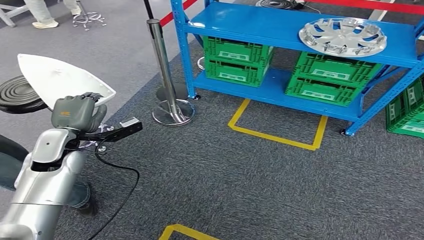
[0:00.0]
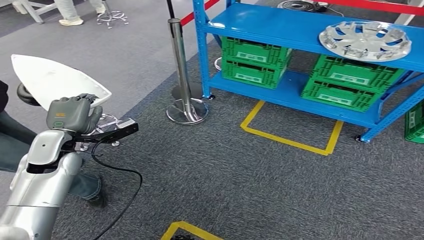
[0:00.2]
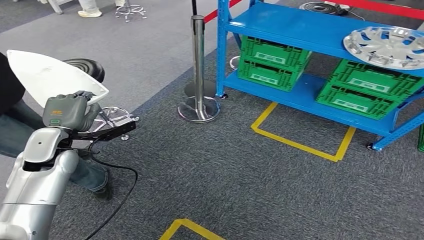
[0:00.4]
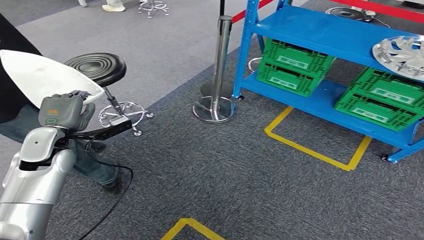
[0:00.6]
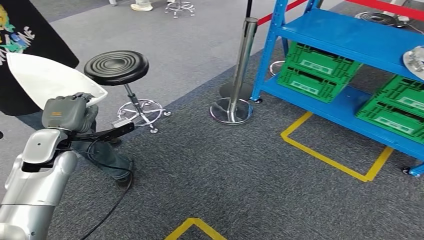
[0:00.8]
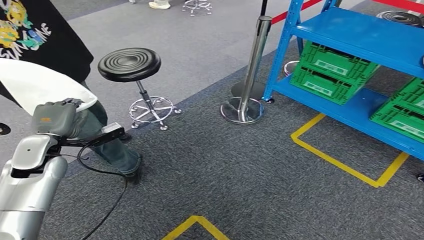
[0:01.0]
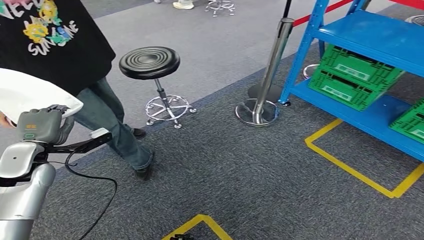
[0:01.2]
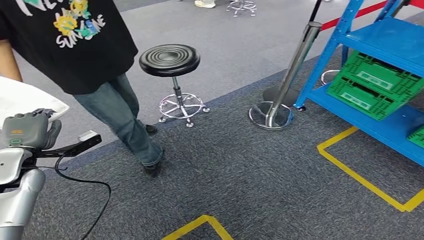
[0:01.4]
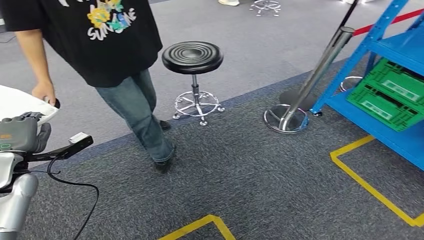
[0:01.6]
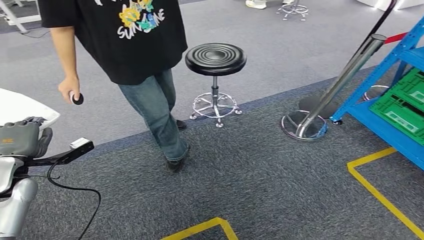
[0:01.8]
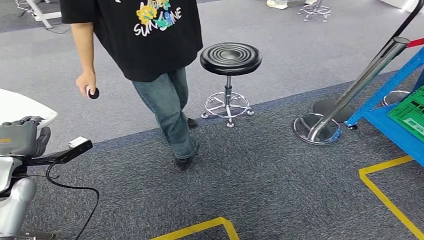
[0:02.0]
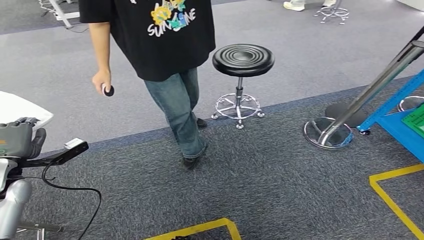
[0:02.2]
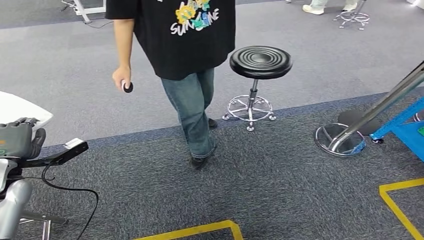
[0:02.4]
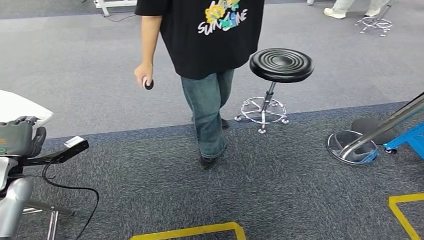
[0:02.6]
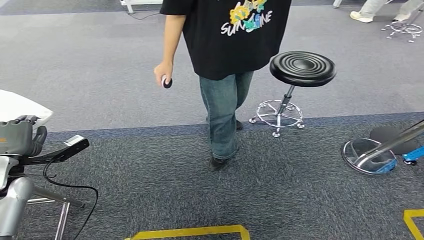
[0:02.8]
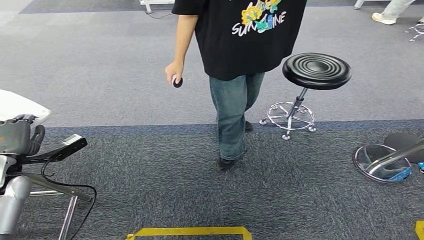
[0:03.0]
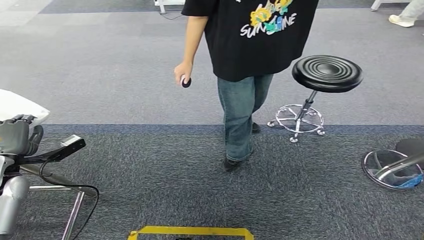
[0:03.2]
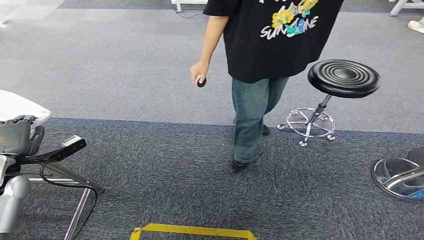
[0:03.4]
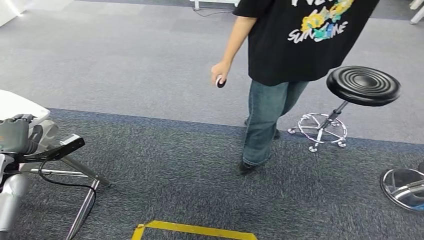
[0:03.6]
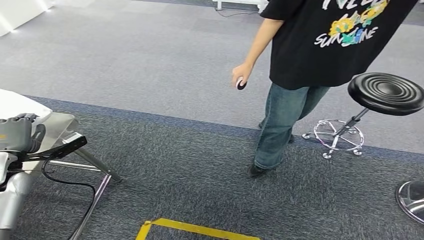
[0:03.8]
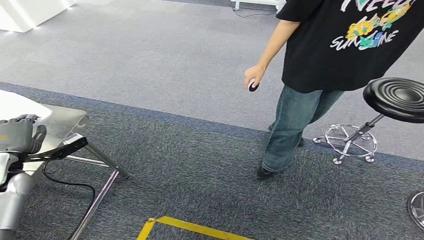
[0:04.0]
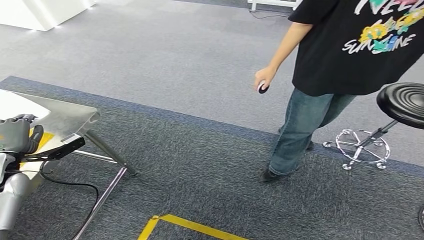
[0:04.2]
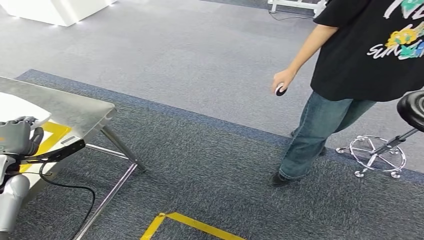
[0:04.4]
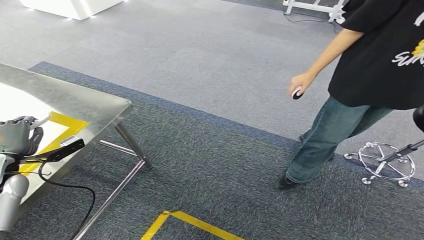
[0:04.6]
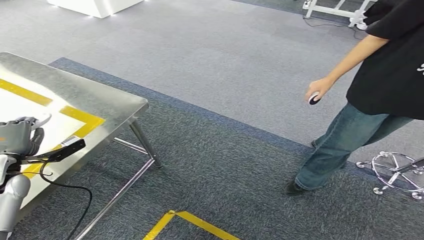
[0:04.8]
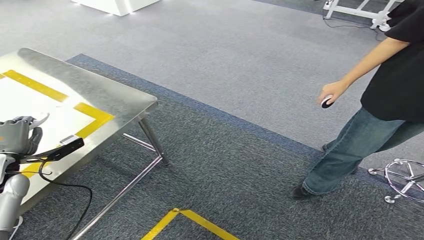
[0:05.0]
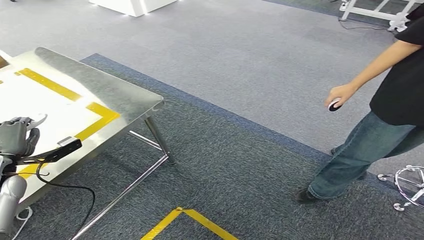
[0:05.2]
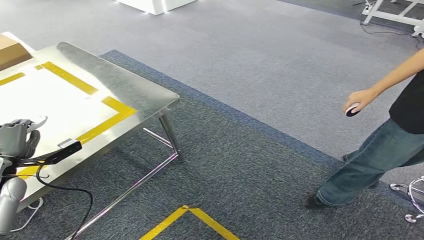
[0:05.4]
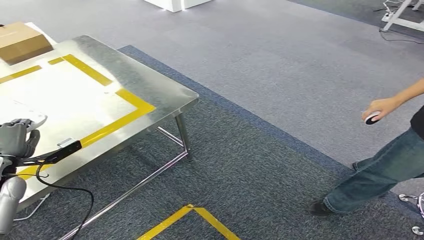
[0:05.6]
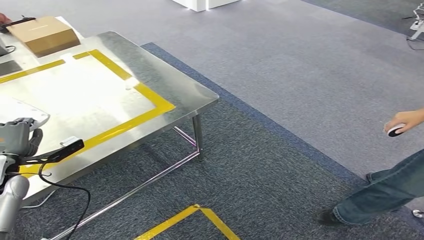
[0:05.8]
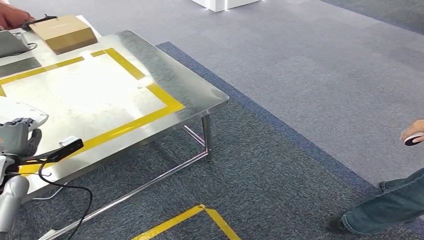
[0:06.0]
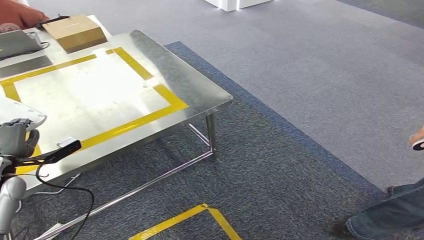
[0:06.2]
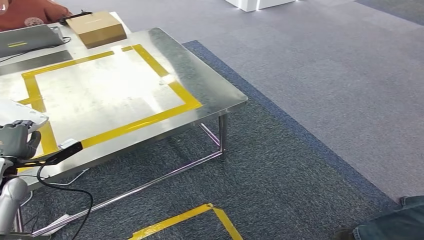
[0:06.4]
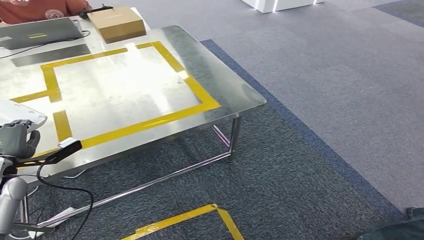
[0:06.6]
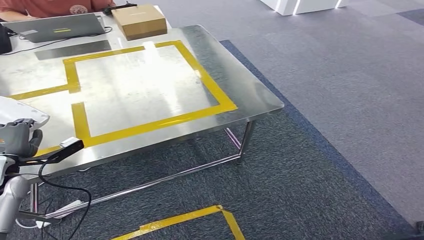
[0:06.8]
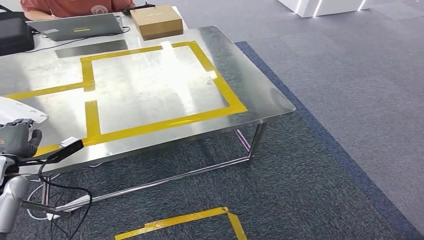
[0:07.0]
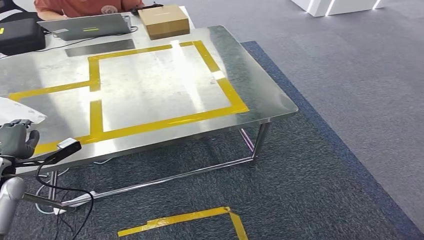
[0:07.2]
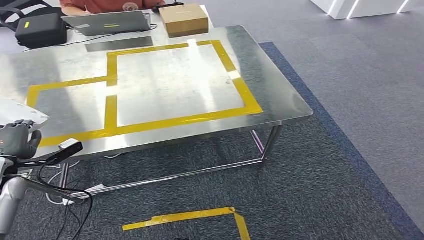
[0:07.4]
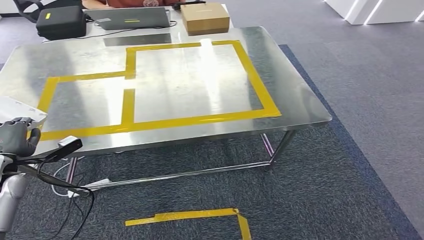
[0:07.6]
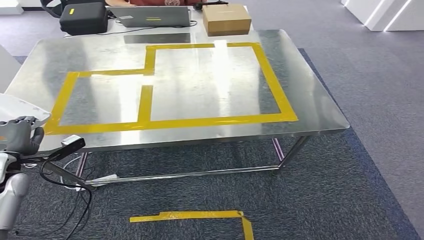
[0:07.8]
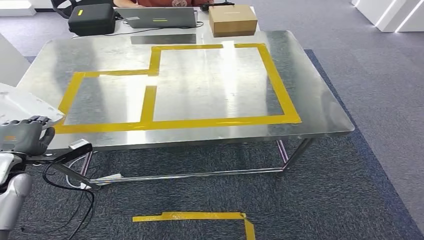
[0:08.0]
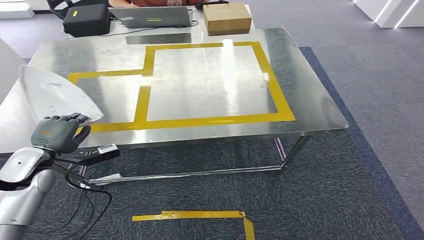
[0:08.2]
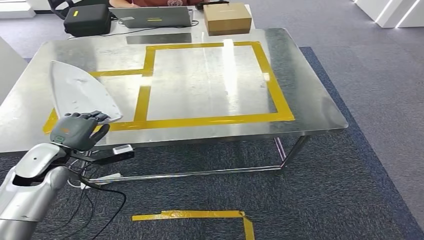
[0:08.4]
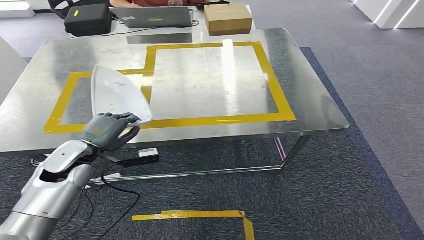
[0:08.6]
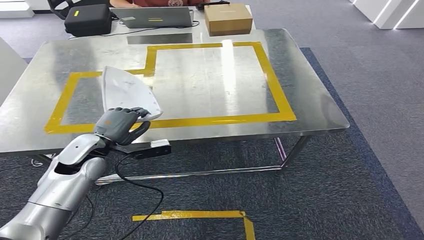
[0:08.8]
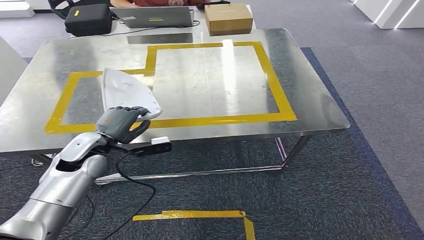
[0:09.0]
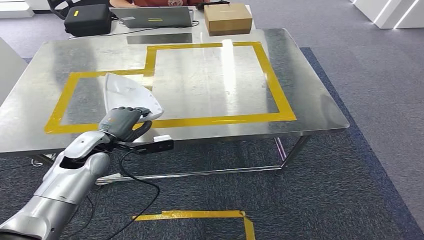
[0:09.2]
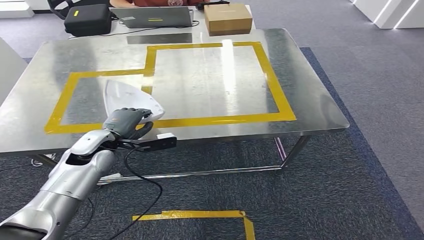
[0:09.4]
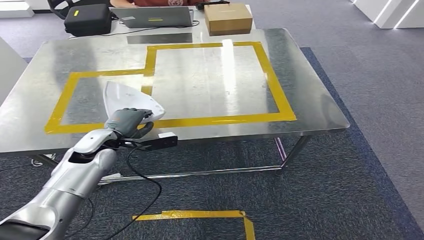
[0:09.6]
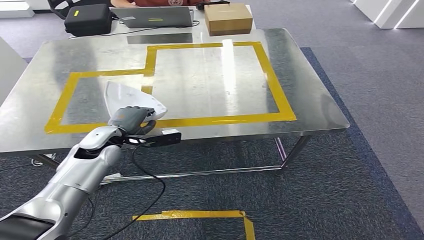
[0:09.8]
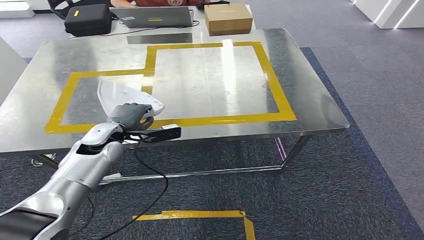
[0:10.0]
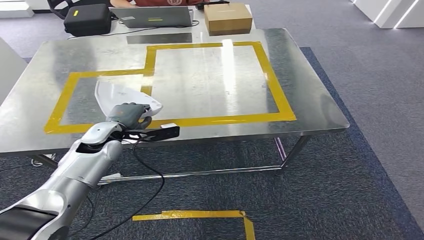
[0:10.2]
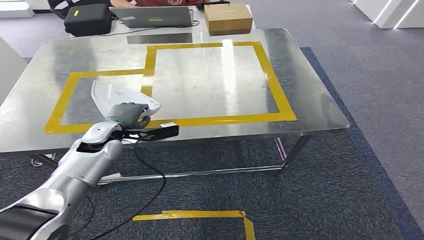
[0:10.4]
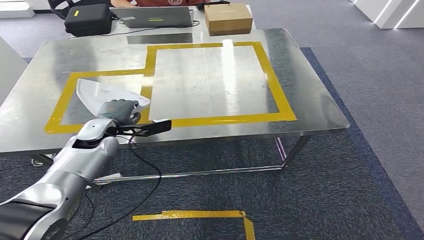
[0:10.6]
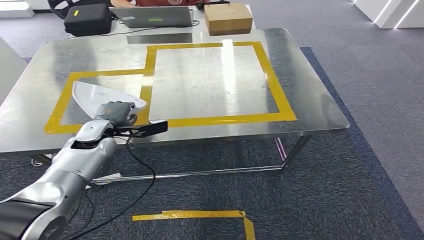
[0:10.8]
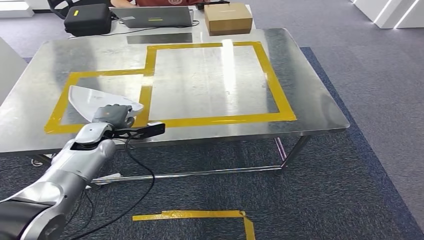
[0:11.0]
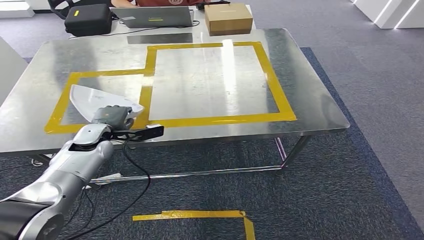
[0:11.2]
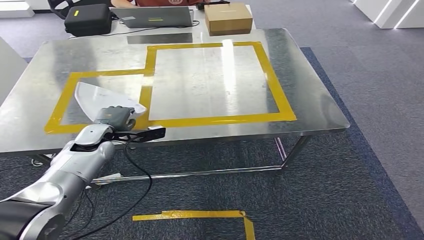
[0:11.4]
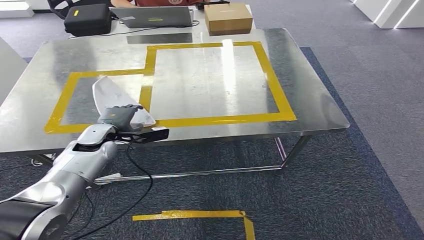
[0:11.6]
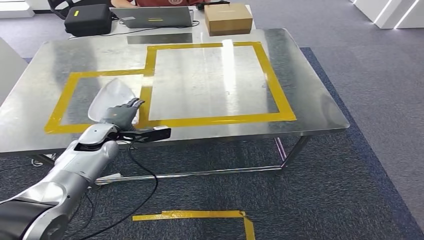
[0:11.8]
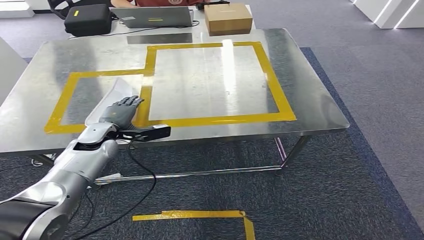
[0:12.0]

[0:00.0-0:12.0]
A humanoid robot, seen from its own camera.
Step, 0:00.0 to 0:08.0: Move the small component to the workbench.
0:09.0 to 0:10.4: The left hand goes about 5 cm forward.
0:10.4 to 0:12.0: The hands stay close to where they were, moving slightly.

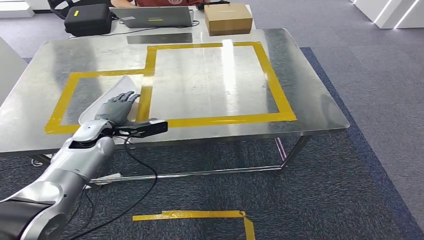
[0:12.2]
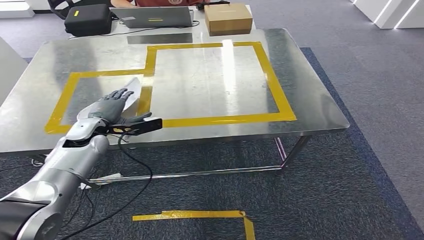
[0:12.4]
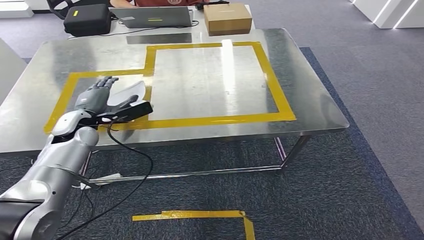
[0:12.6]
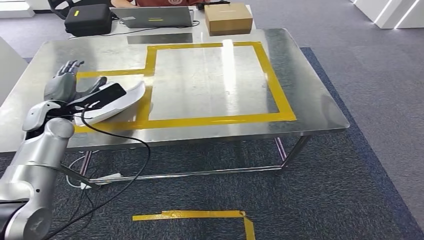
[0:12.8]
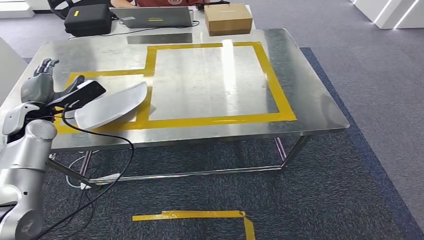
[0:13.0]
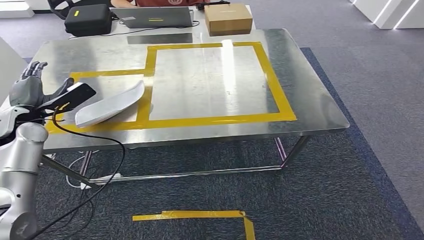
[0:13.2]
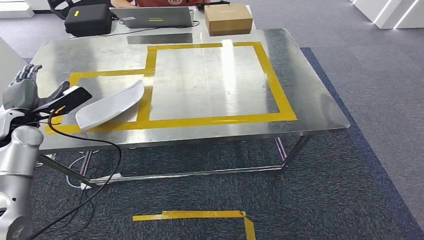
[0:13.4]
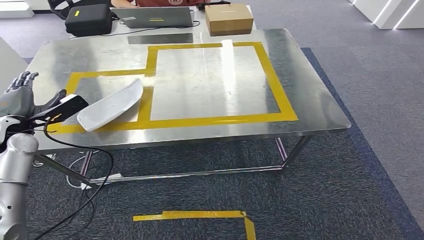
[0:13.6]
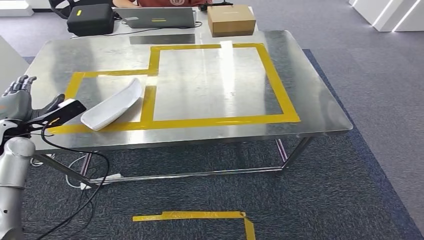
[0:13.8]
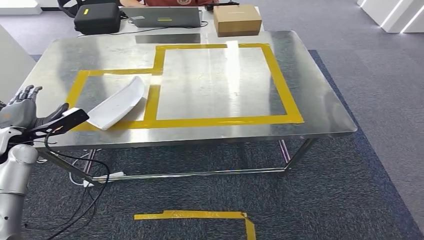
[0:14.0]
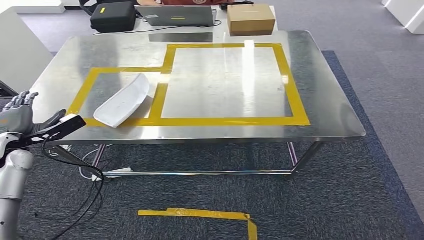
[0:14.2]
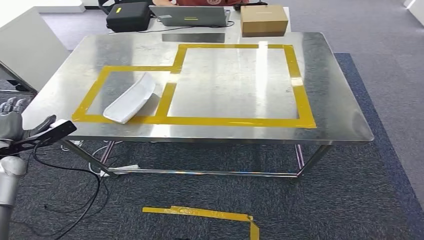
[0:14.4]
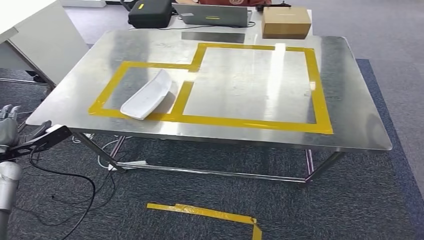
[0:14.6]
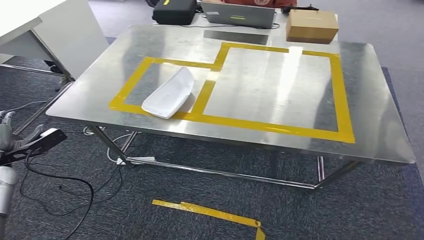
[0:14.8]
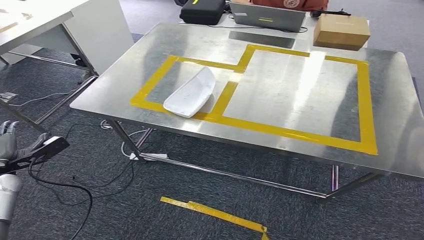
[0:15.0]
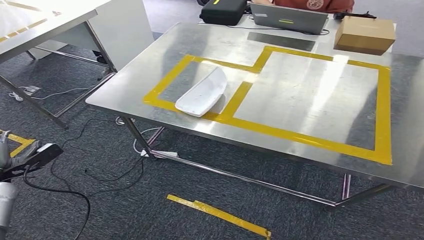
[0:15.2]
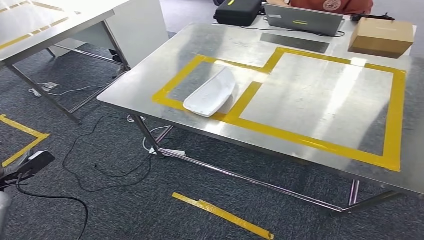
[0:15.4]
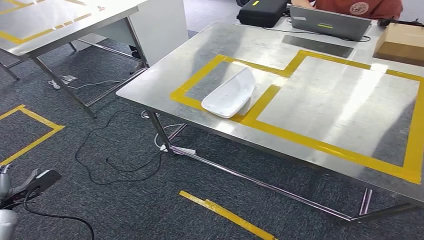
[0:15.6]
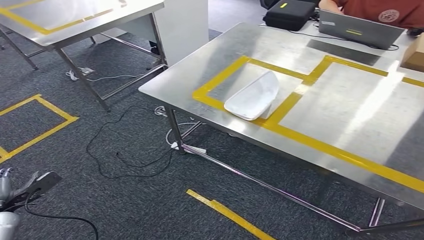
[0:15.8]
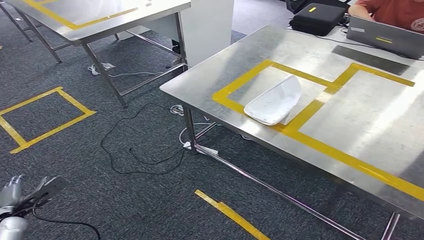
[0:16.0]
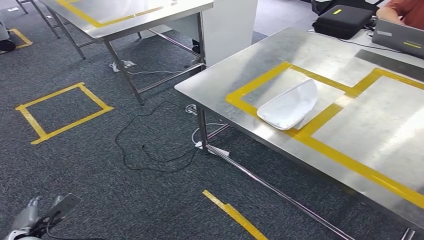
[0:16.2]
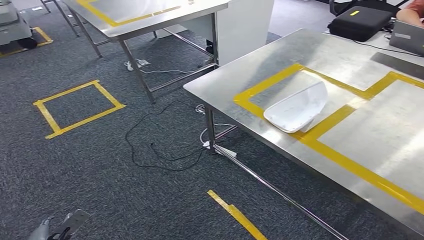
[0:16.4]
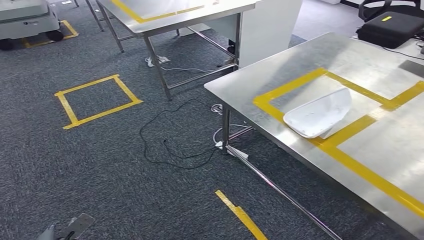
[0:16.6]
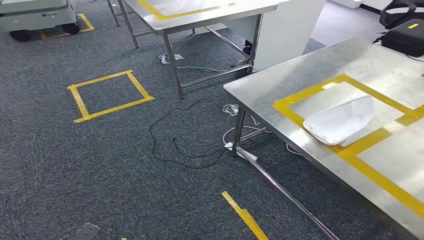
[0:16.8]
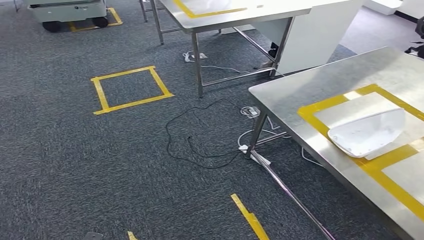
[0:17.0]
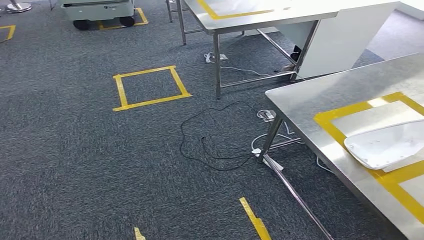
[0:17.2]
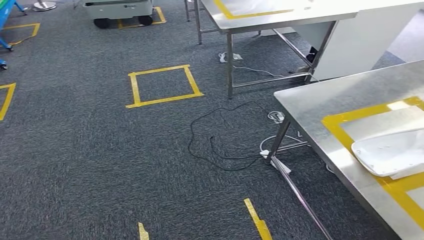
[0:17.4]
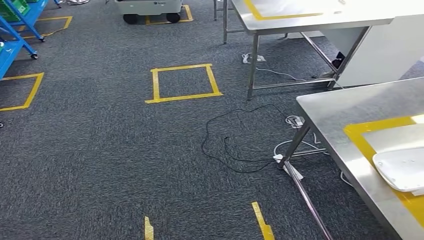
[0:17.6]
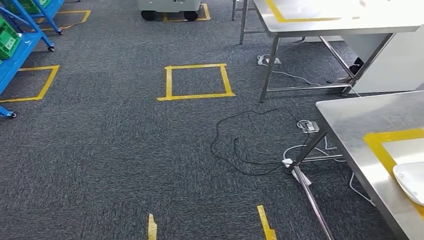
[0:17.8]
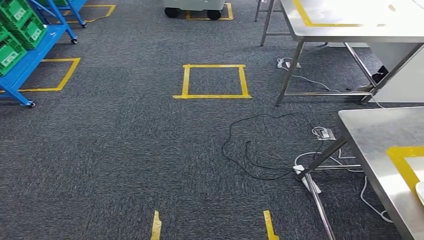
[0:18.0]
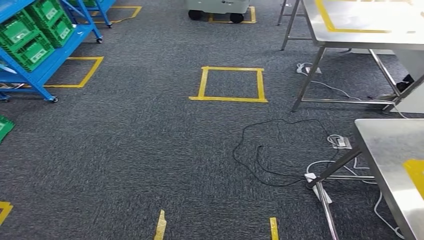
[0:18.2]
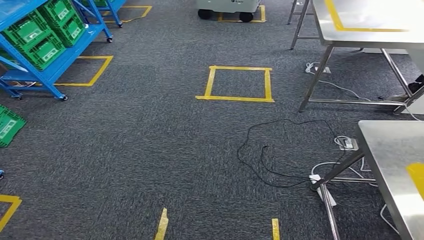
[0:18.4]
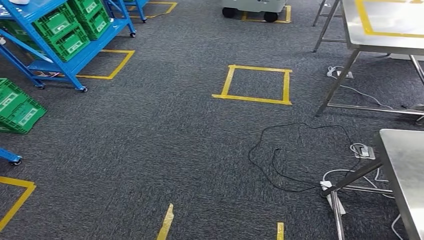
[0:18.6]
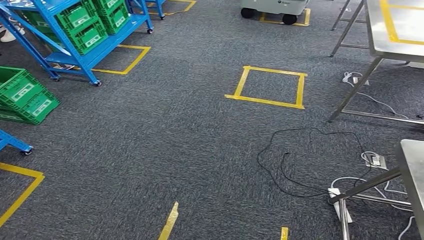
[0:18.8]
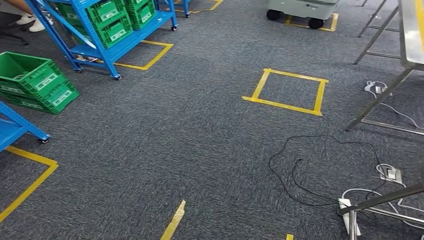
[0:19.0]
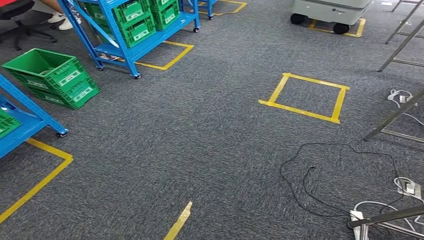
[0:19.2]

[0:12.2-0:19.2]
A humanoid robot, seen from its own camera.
0:12.2 to 0:13.6: The left hand goes some 15 cm to the left and upward.
